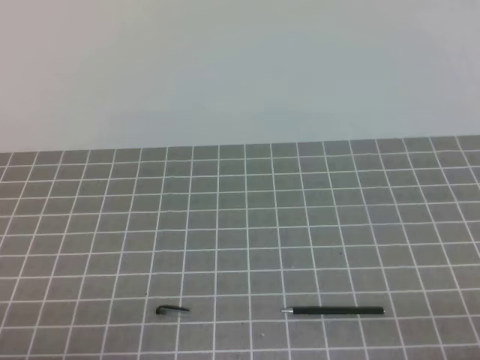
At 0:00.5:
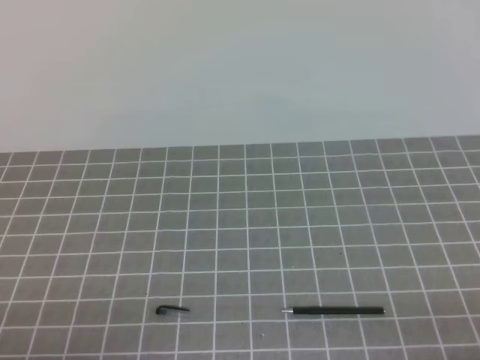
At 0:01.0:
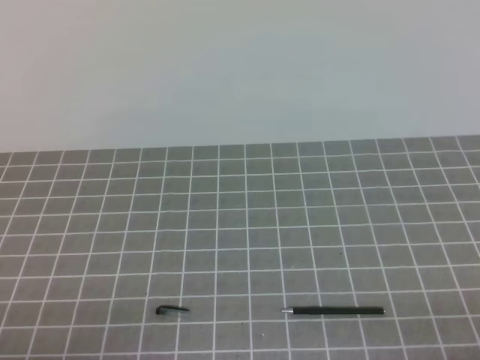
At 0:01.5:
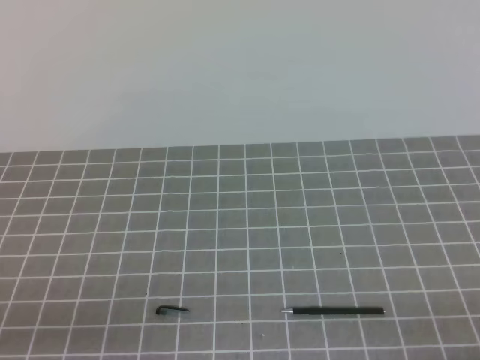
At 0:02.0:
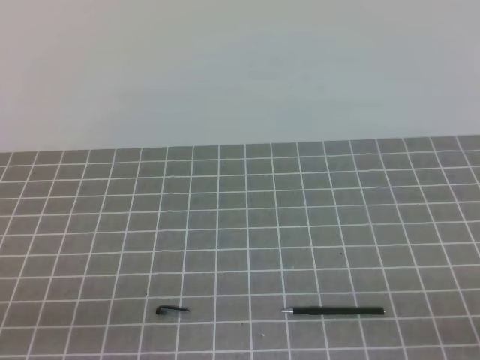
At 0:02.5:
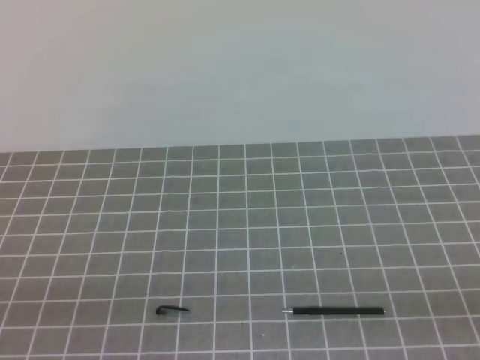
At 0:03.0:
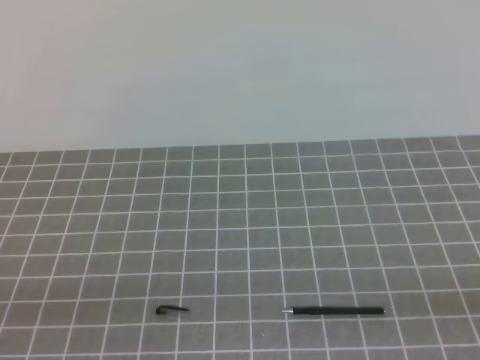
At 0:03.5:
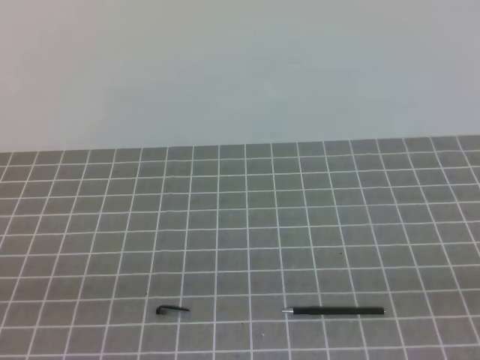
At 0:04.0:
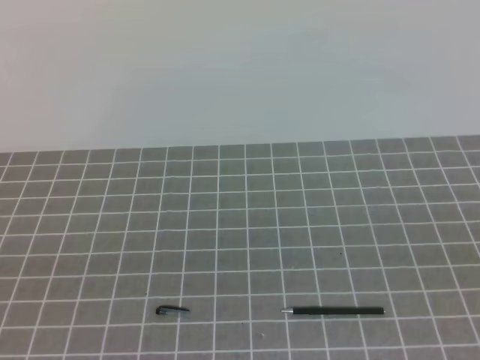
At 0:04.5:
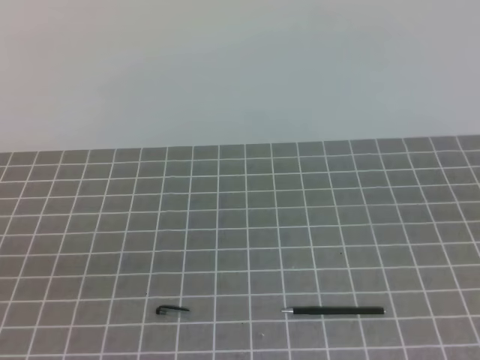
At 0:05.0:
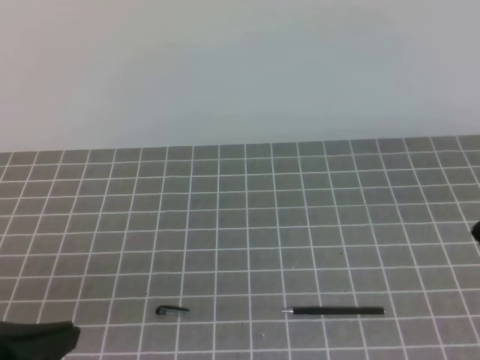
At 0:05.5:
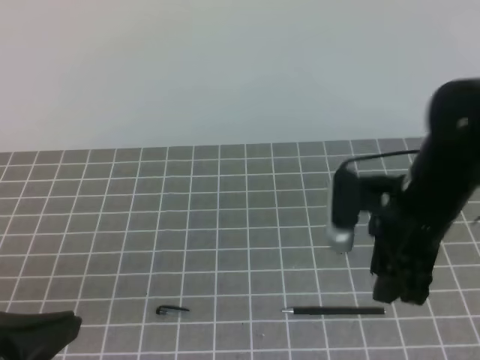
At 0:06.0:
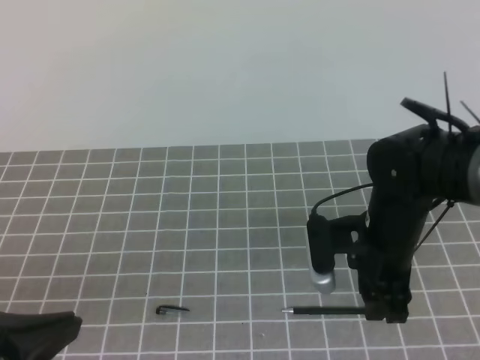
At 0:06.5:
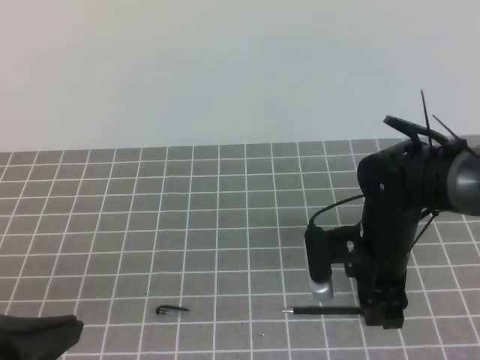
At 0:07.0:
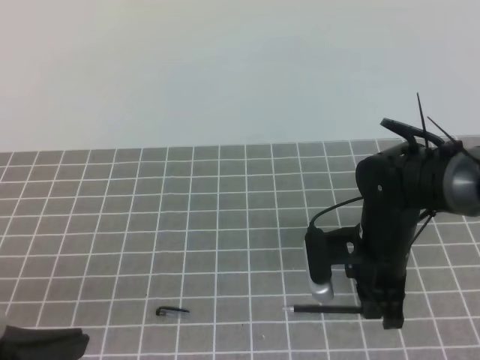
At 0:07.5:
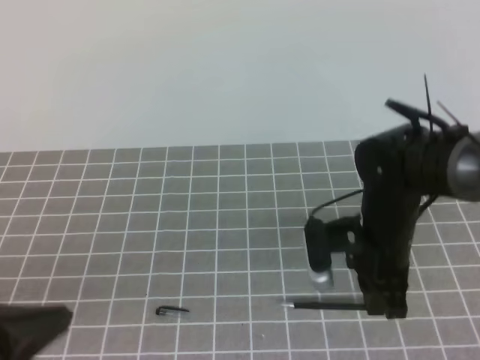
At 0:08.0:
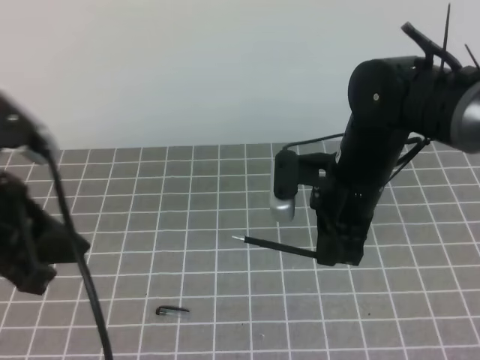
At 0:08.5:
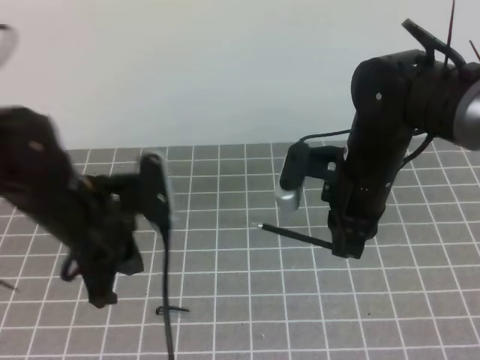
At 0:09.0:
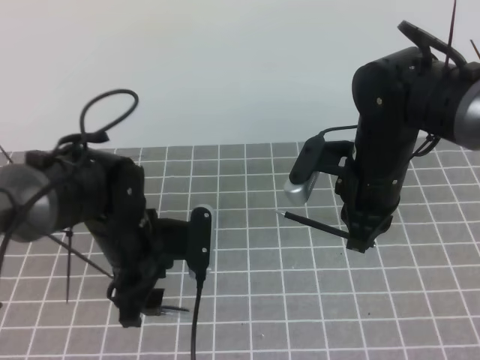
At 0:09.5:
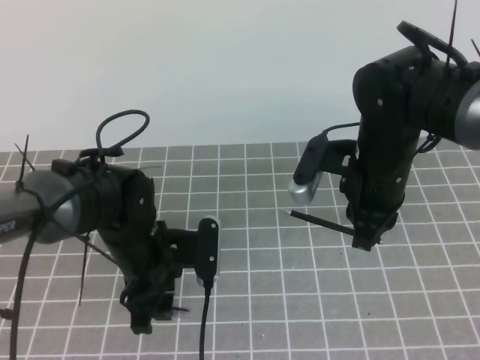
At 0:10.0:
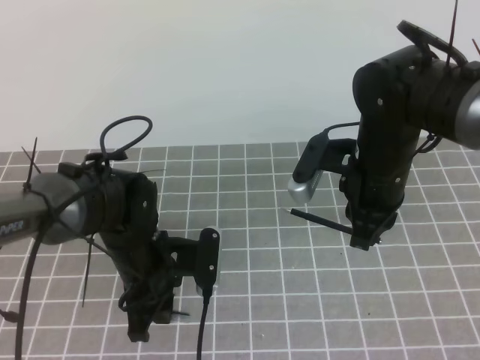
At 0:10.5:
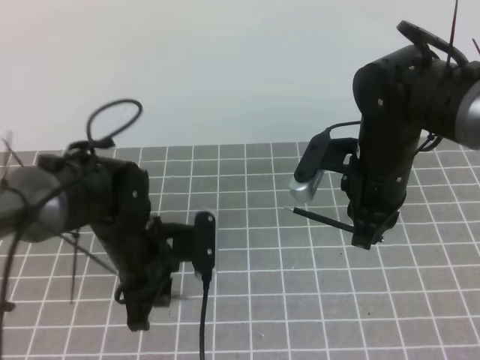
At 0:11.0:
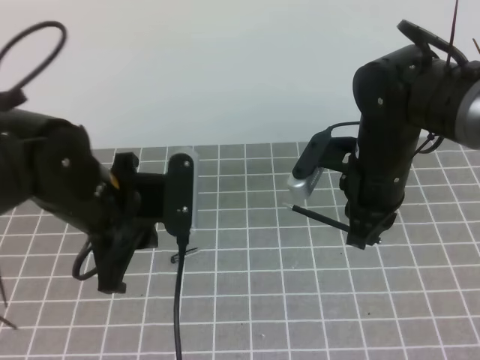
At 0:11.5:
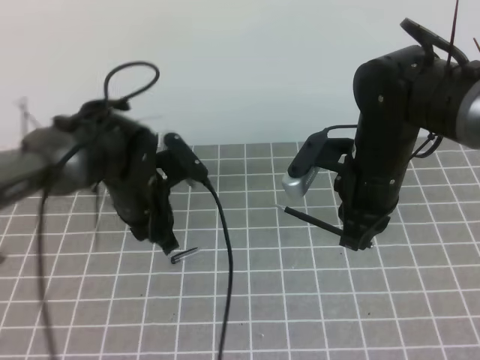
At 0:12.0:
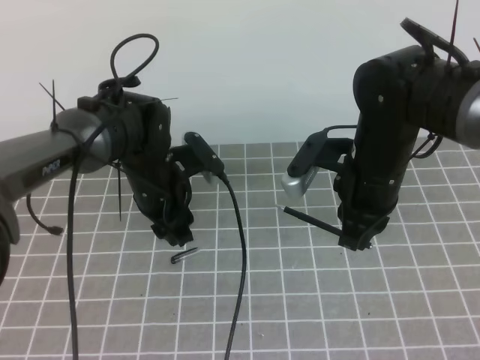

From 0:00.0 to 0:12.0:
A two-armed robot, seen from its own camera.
Task of the whole recording: on the grey tablecloth, hold the pen cap in one hand and the pen in the other, then cover the pen cap.
From 0:04.0 to 0:06.0: The right gripper travels forward, to the left and downward by roughly 35 cm, and opens up; the left gripper travels forward and to the right by roughly 10 cm.
From 0:06.0 to 0:08.0: The left gripper goes some 10 cm forward. Meanwhile the right gripper ends up roughly 5 cm from where it was, and closes its fingers.
From 0:08.0 to 0:10.0: The left gripper heads downward, forward and to the right, covering roughly 25 cm, and opens, then closes again.
From 0:10.0 to 0:12.0: The left gripper shifts about 10 cm forward, and opens up.

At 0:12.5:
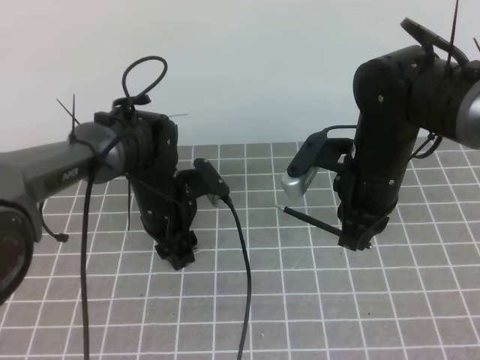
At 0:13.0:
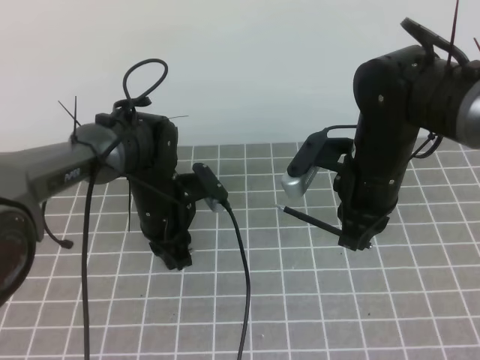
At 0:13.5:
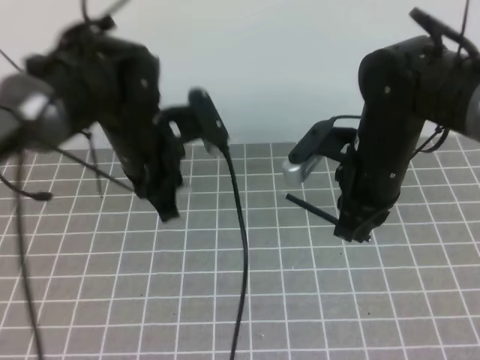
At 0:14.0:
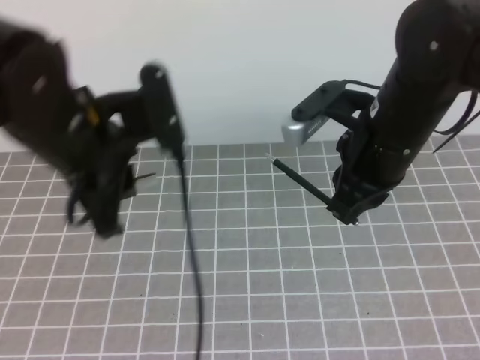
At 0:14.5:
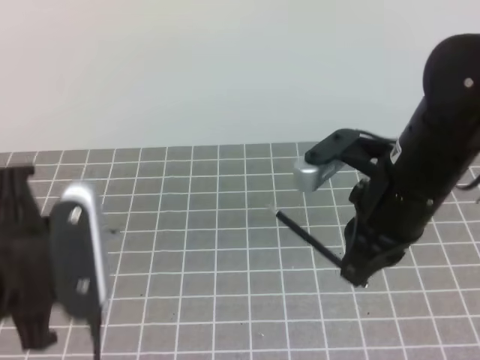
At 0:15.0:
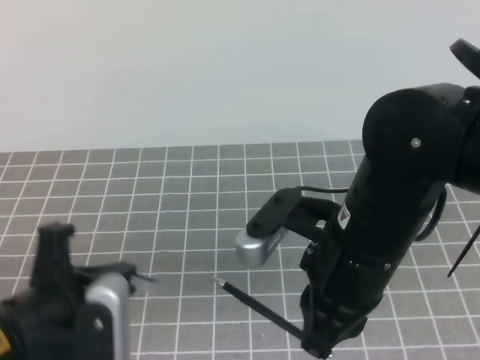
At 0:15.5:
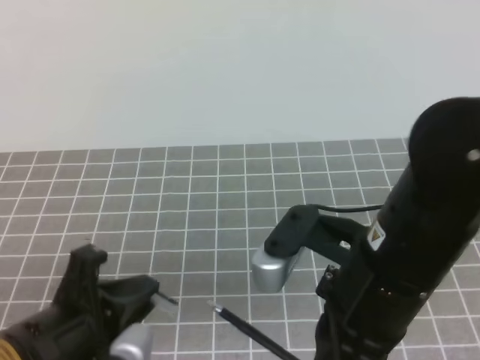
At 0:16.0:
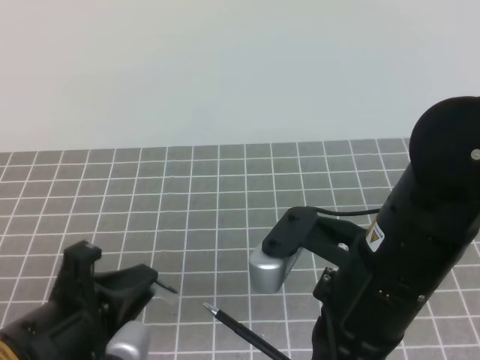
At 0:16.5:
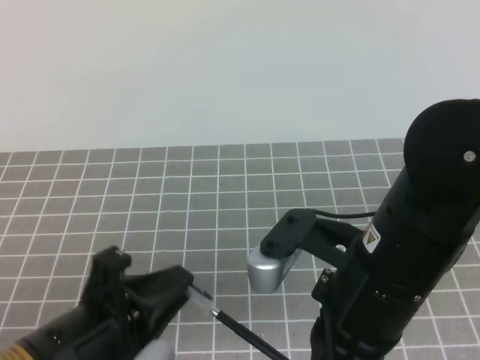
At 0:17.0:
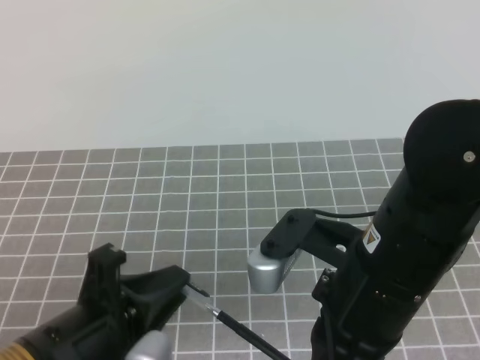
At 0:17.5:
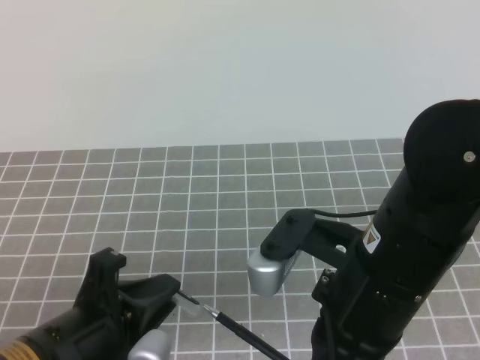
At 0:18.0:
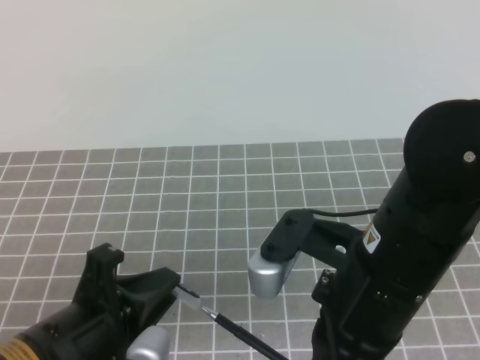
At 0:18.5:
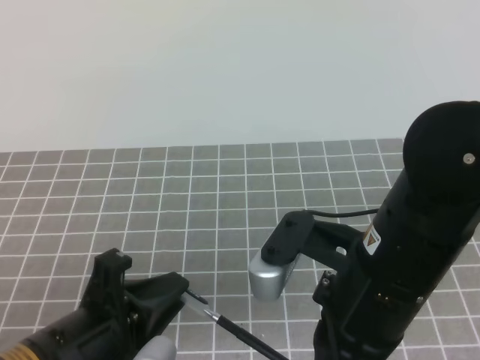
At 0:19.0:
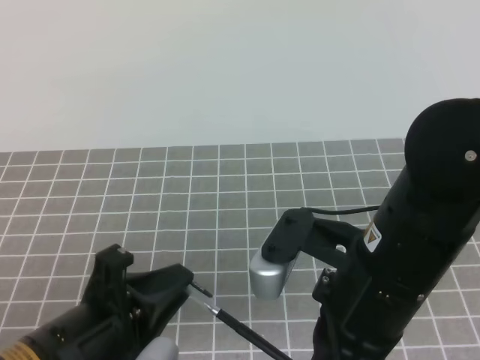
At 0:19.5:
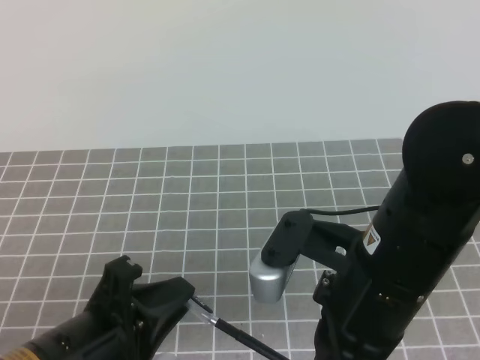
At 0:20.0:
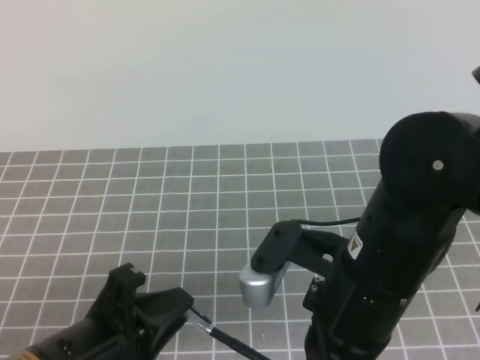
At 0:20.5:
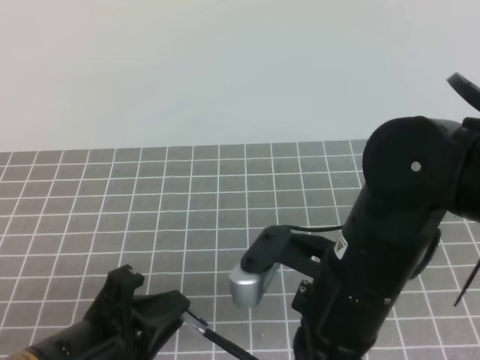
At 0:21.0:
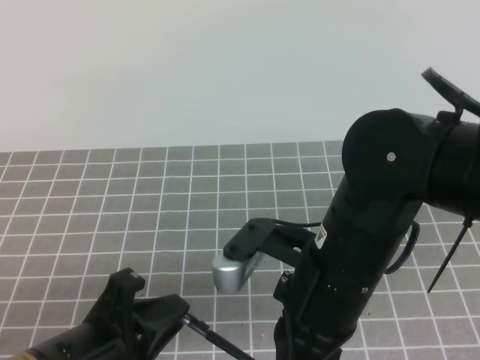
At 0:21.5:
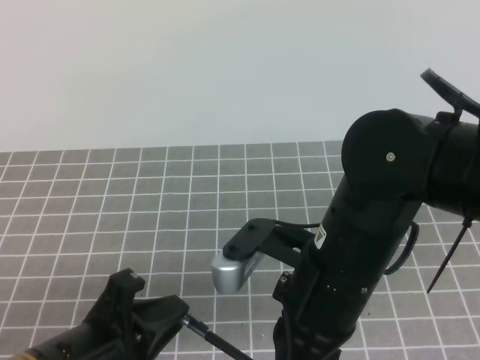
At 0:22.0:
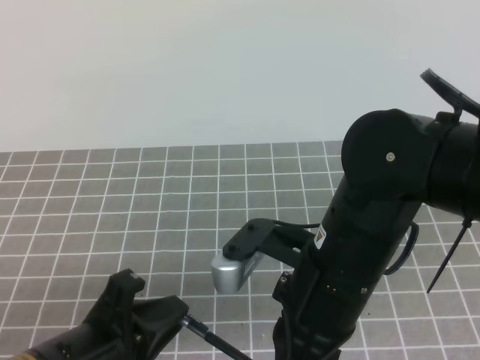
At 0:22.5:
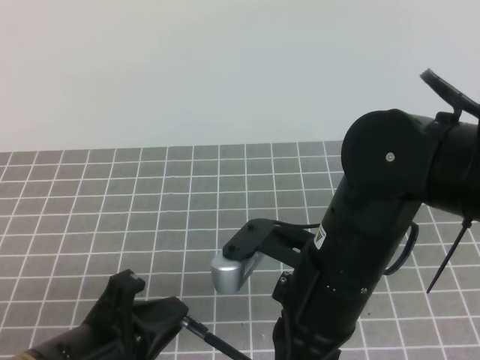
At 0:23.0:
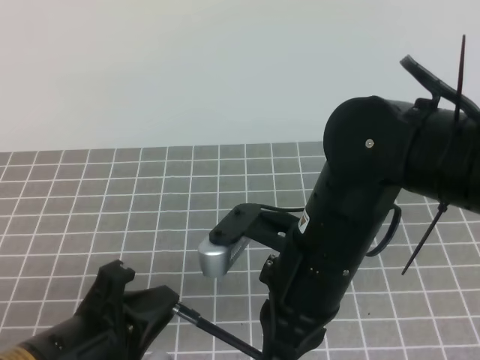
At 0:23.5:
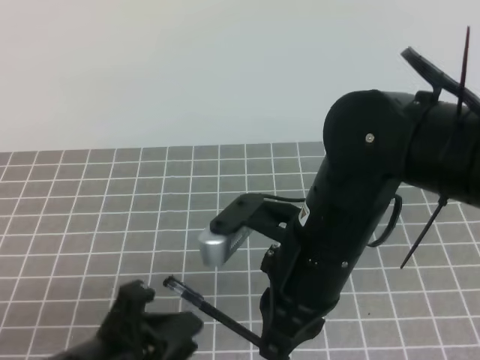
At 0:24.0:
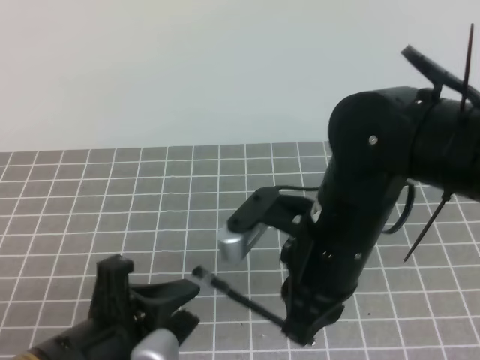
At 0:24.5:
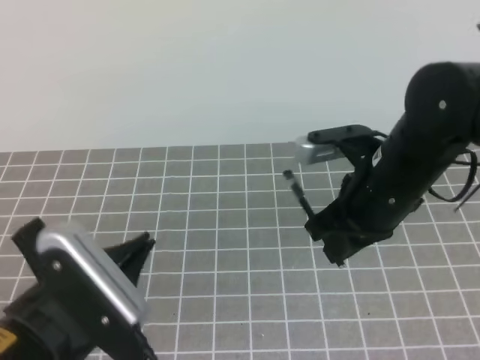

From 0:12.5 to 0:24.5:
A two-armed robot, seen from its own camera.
Task of the whole recording: on the grey tablecloth, hold the pen cap in one hand and the pen in the other, then cover the pen cap.
From 0:12.5 to 0:14.5: The left gripper moves backward, upward and to the left, some 25 cm, and closes. The right gripper is displaced backward and upward by roughly 10 cm.
From 0:14.5 to 0:16.5: The right gripper travels backward by roughly 10 cm. Meanwhile the left gripper travels downward by some 5 cm.
From 0:16.5 to 0:22.5: There are only small adjustments of the grippers.
From 0:22.5 to 0:24.5: The left gripper opens, then closes again; the right gripper is displaced forward and to the right by roughly 10 cm.

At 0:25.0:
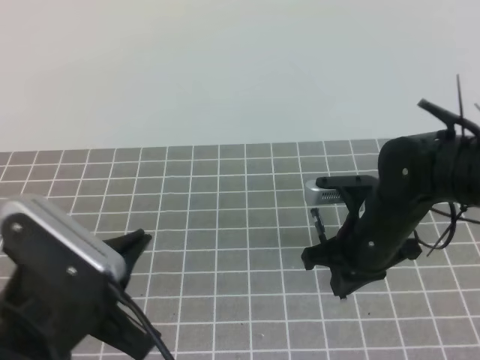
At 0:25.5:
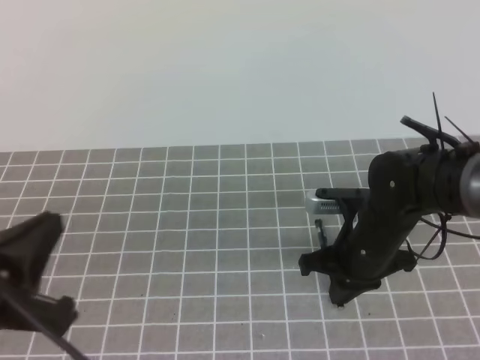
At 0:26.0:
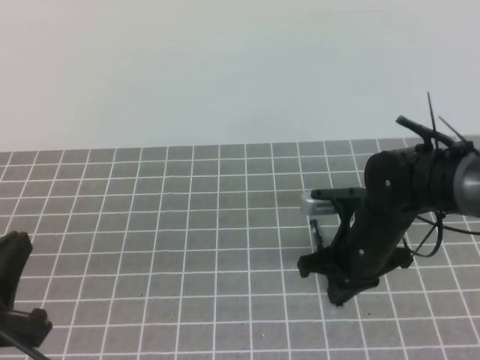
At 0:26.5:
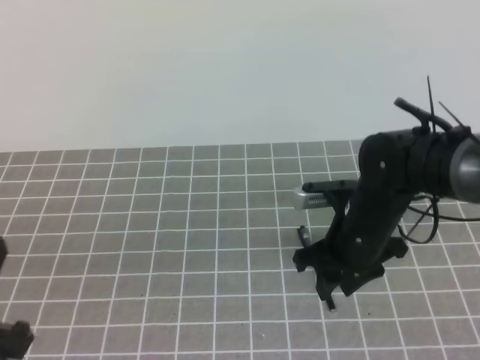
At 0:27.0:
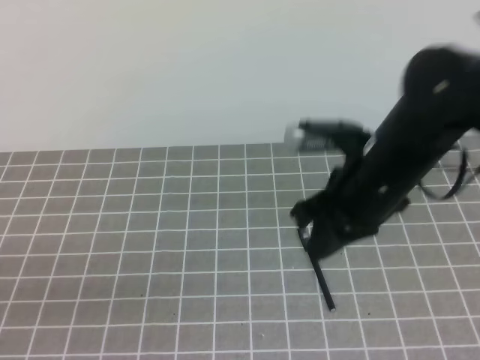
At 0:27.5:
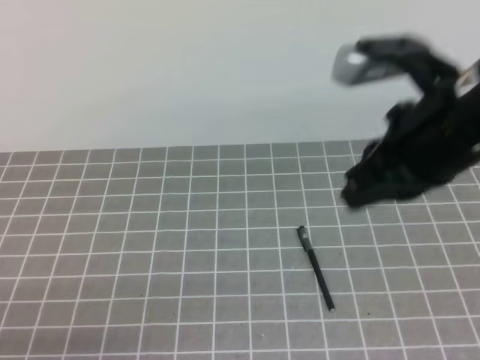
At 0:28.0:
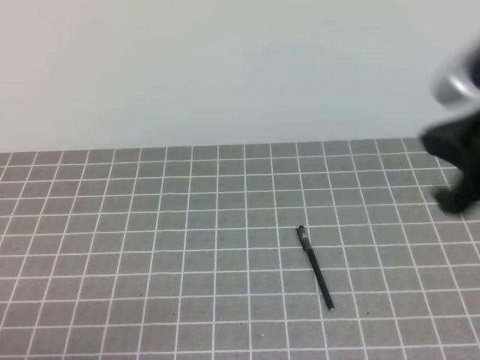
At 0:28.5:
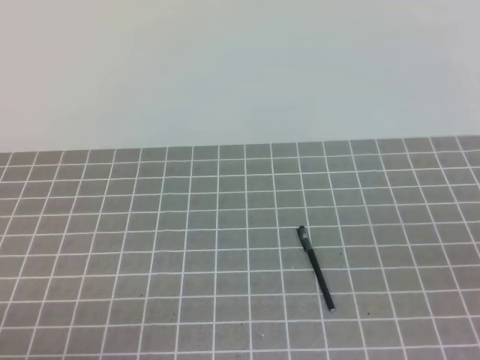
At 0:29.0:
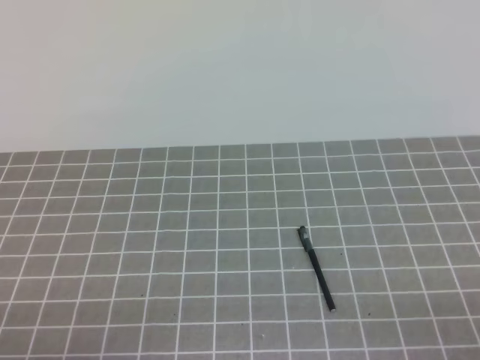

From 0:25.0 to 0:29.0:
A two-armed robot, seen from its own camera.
Task of the whole recording: on the grey tablecloth, hold the pen cap in one hand and the pen in the other, then cover the pen cap.
From 0:25.0 to 0:27.0: The left gripper goes roughly 10 cm to the left and backward; the right gripper goes roughly 10 cm upward, and opens, then closes once more.
From 0:27.0 to 0:29.0: The right gripper heads backward and to the right, covering approximately 35 cm, and closes. Meanwhile the left gripper moves downward, about 5 cm.
